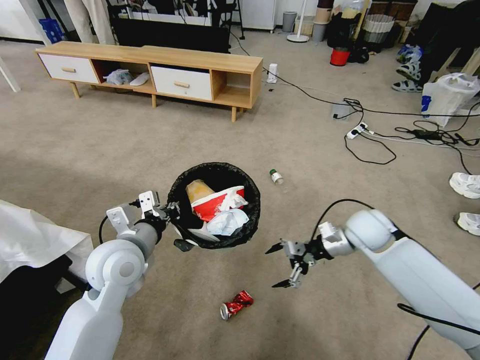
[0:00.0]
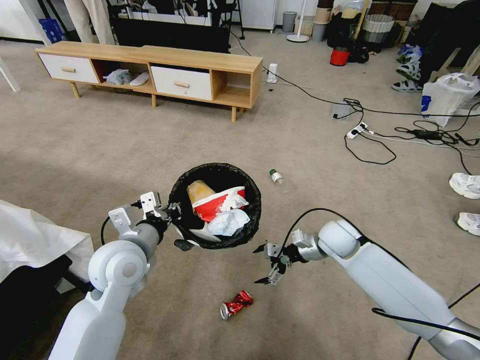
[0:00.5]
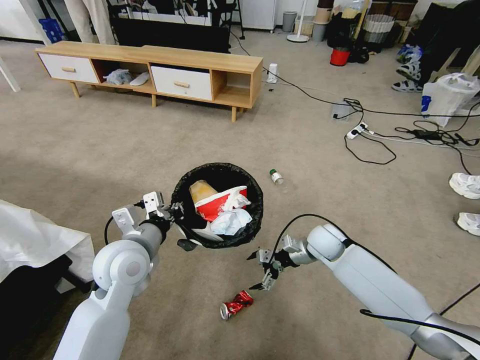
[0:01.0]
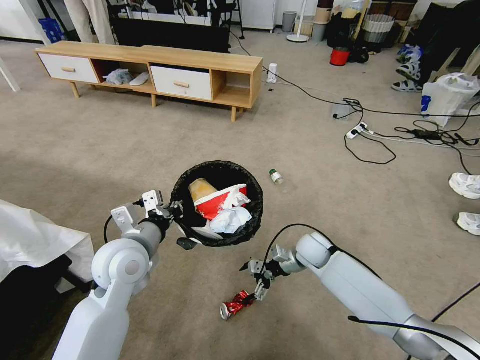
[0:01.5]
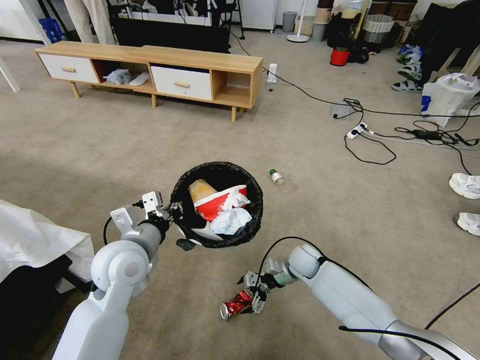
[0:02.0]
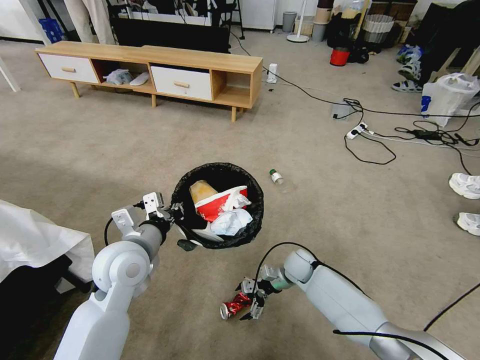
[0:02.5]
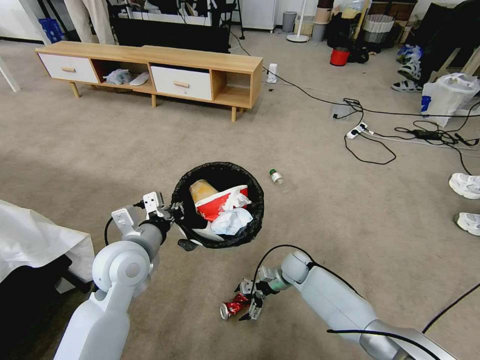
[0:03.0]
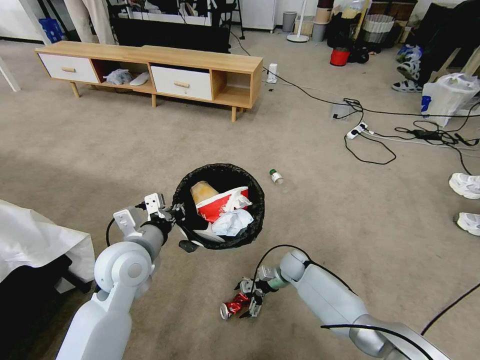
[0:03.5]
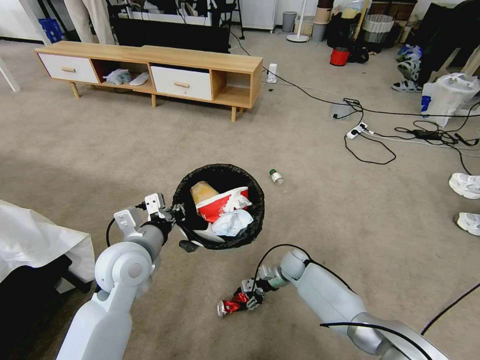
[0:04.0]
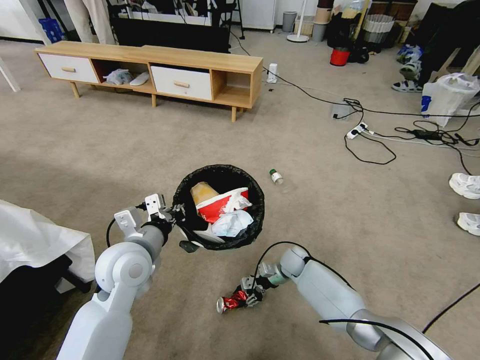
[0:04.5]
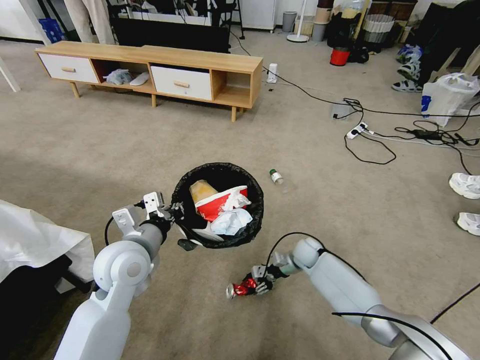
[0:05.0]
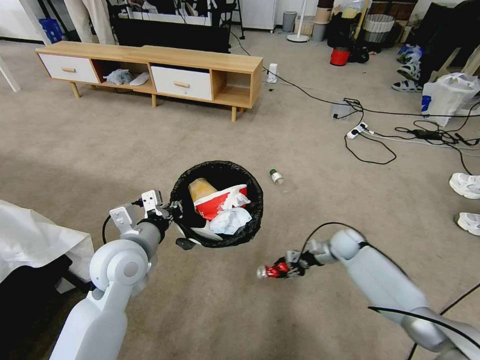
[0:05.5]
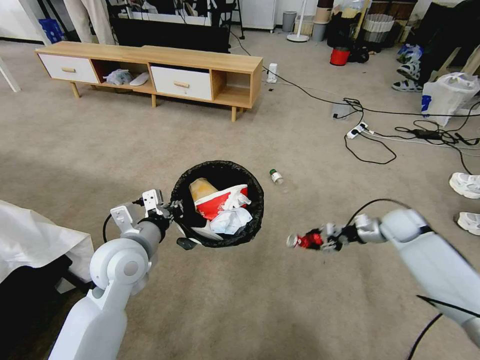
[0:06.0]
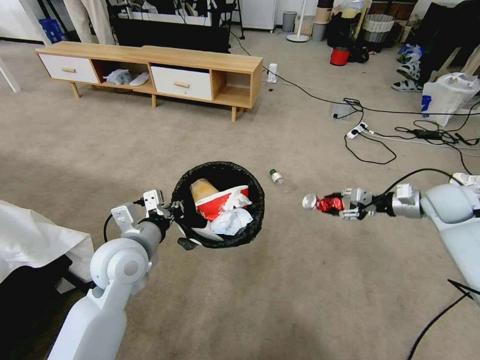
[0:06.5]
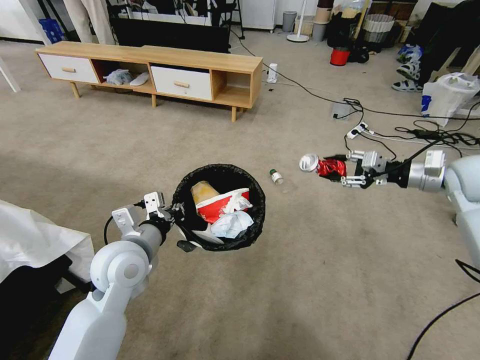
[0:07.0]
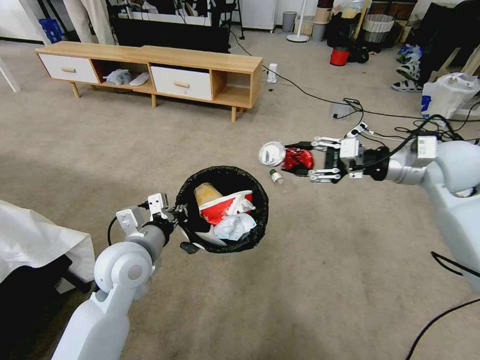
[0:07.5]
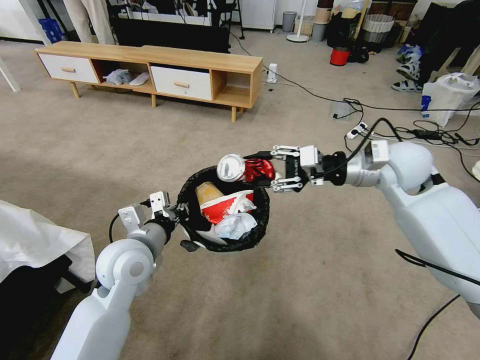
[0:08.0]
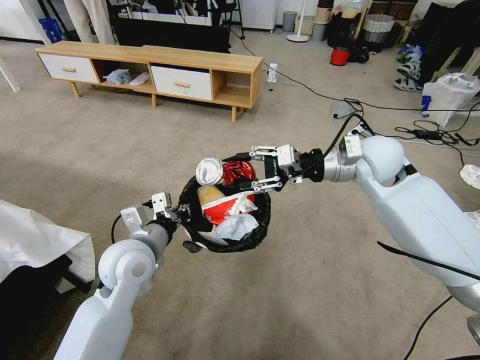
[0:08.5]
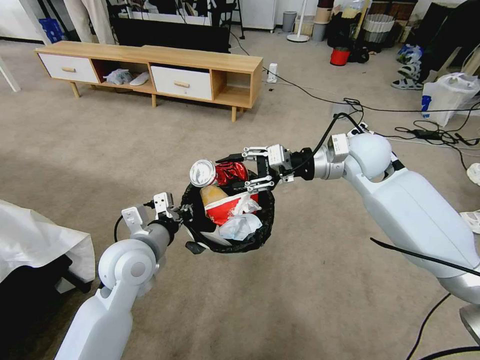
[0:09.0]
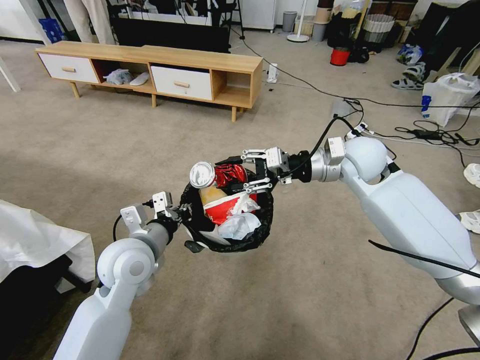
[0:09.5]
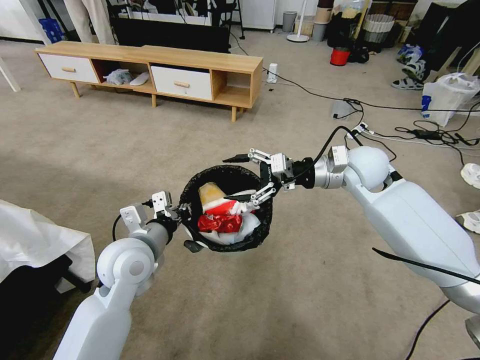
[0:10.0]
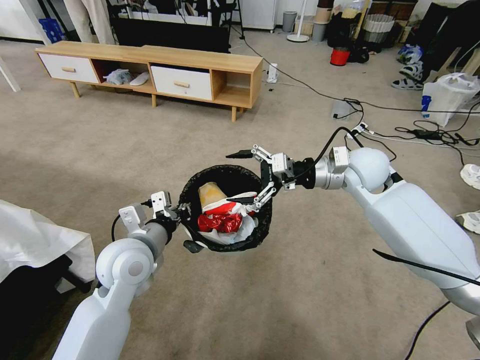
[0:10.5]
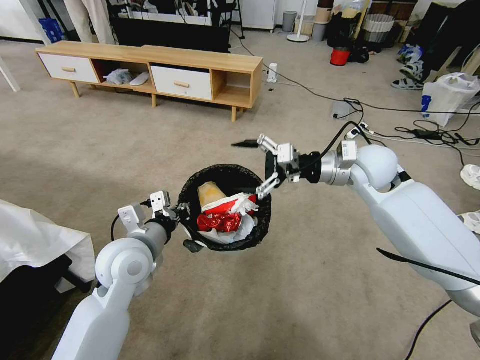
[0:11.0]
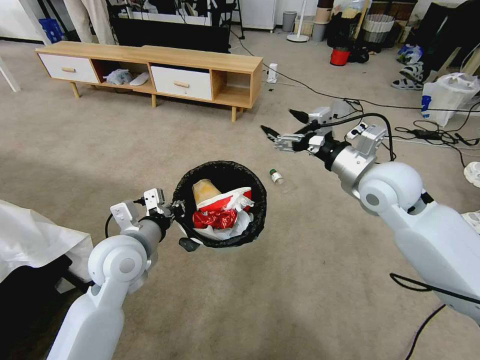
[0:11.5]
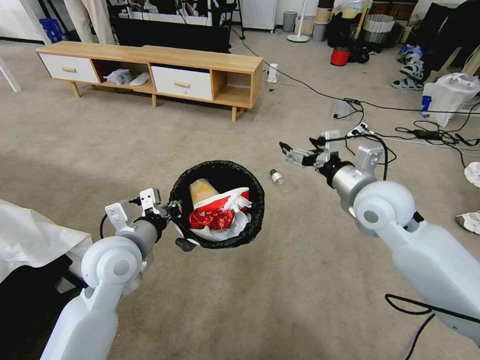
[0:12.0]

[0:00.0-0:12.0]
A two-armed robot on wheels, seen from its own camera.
Task of the whole recording: Pick up the trash bin and place the garbage on the floor into it.
0:00.0 to 0:02.0: The right gripper travels downward and to the left by some 20 cm.
0:02.0 to 0:04.0: The right gripper shifts approximately 5 cm downward, and closes.
0:04.0 to 0:06.0: The right gripper travels to the right and upward by roughly 35 cm.
0:06.0 to 0:08.0: The right gripper goes some 25 cm upward and to the left.
0:08.0 to 0:10.0: The right gripper changes place by about 5 cm, and opens its fingers.
0:10.0 to 0:12.0: The right gripper travels backward by some 10 cm.

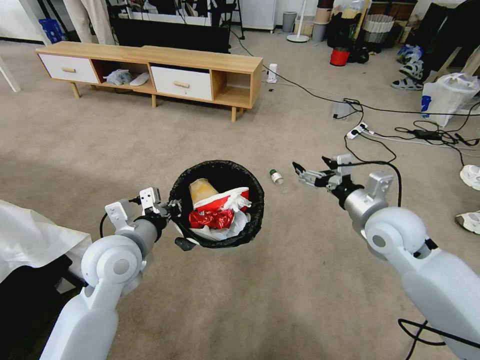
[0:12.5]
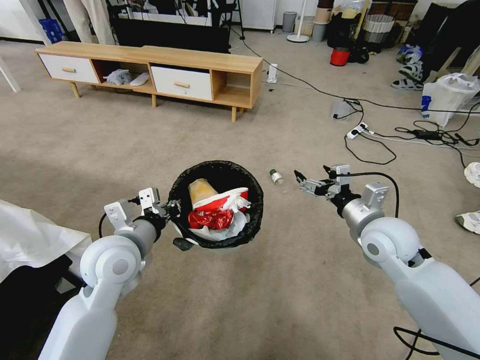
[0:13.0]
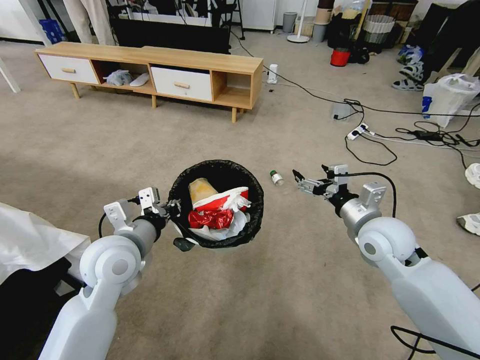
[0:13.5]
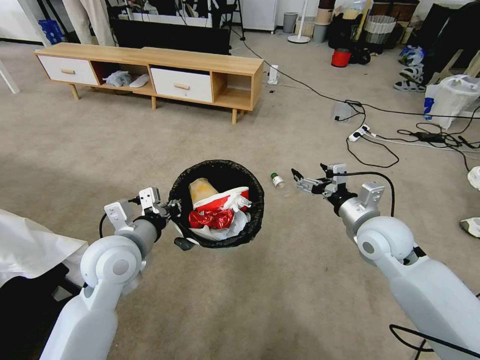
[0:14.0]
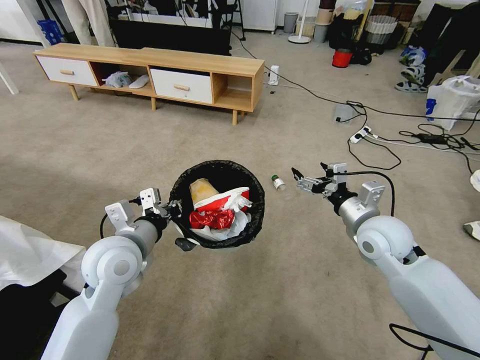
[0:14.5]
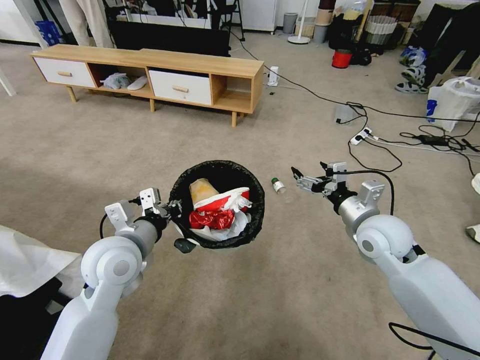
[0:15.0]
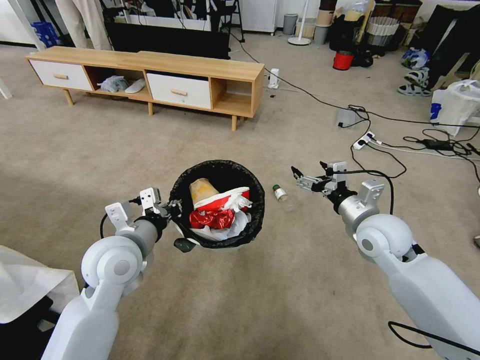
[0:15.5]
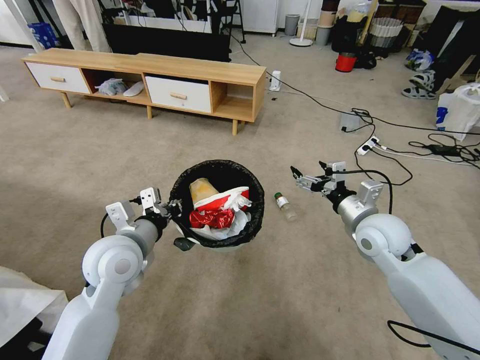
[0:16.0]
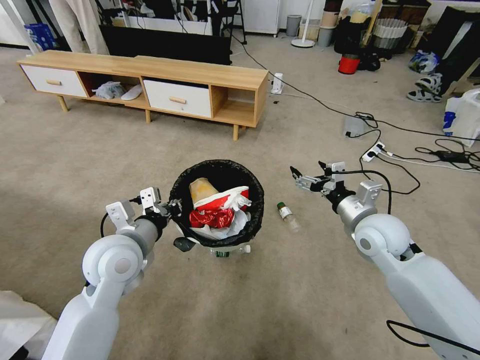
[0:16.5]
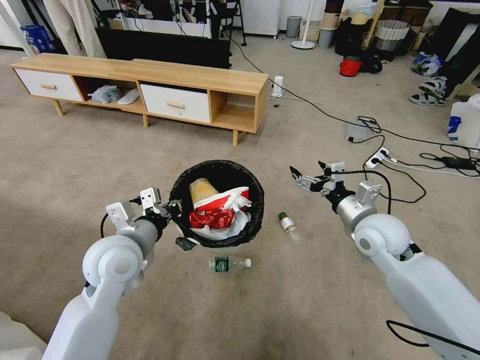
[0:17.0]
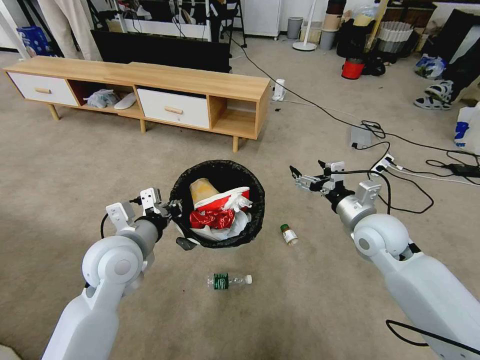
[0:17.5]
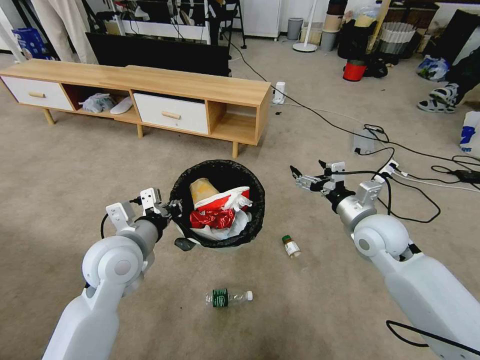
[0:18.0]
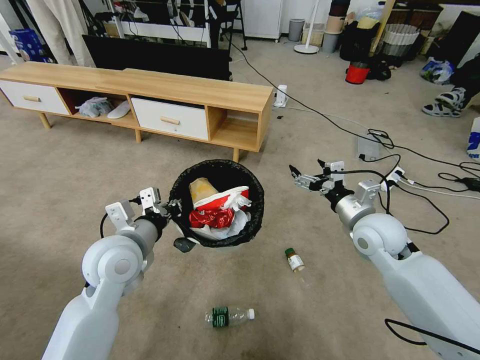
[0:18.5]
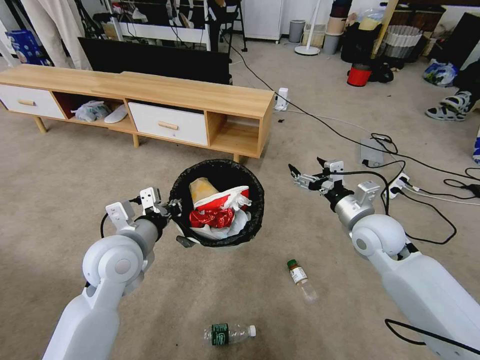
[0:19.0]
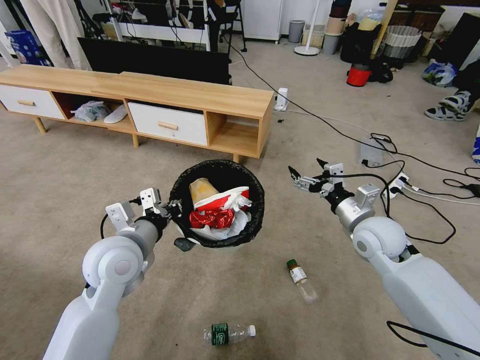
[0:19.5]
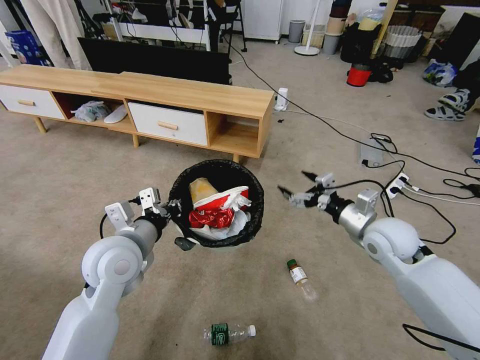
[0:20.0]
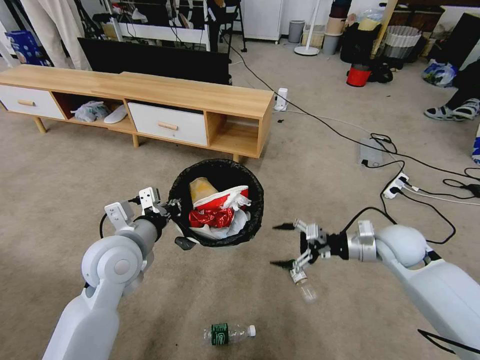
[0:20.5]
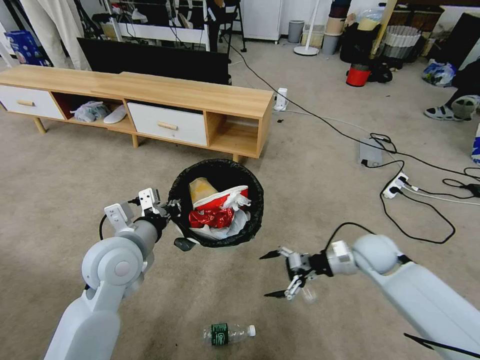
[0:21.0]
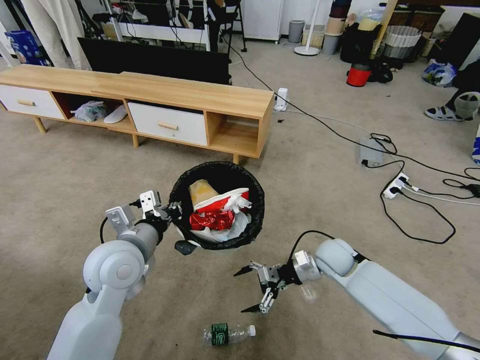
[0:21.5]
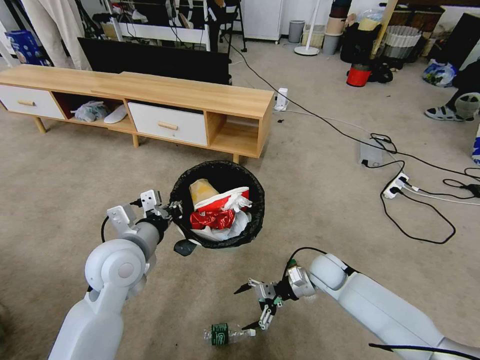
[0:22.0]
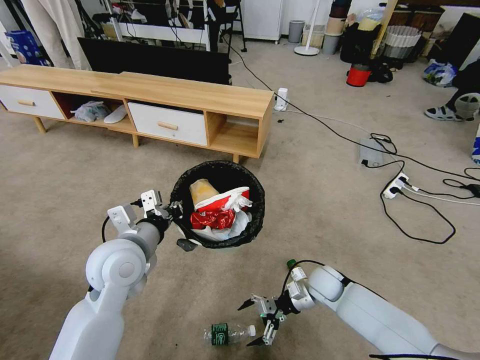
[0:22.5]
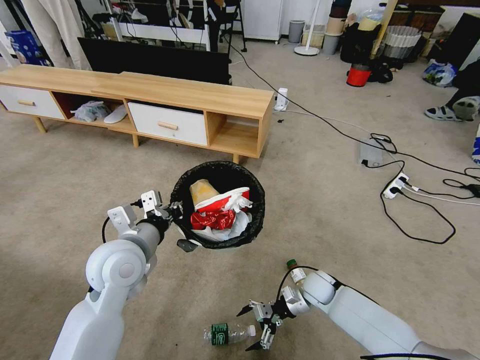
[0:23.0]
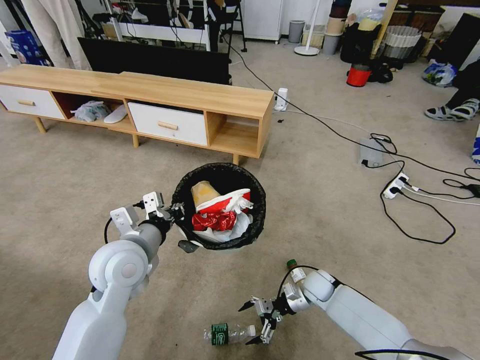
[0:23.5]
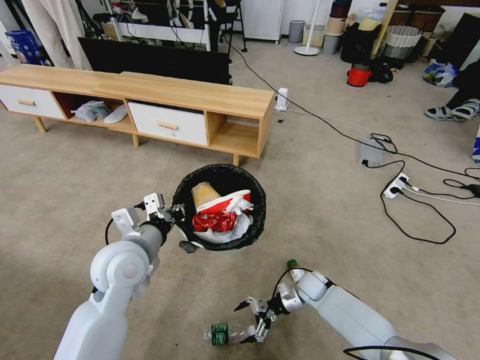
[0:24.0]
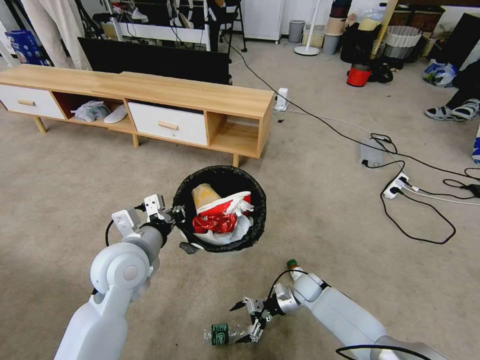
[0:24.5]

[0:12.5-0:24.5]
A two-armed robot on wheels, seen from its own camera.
Task of the whole recording: Pick up the trash bin and place the garbage on the floor into it.
0:12.5 to 0:14.5: The grippers make only small movements.
0:18.5 to 0:20.5: The right gripper moves to the right, about 5 cm.
0:20.5 to 0:22.5: The right gripper travels downward and to the left by about 20 cm.
0:22.5 to 0:24.5: The right gripper heads downward, covering roughly 10 cm.

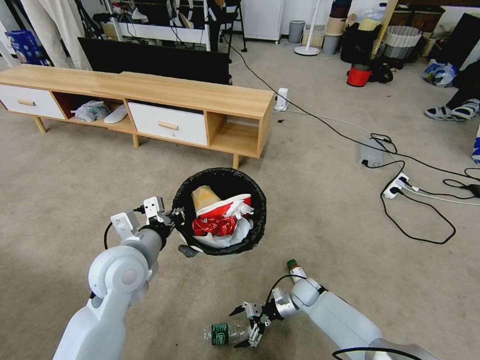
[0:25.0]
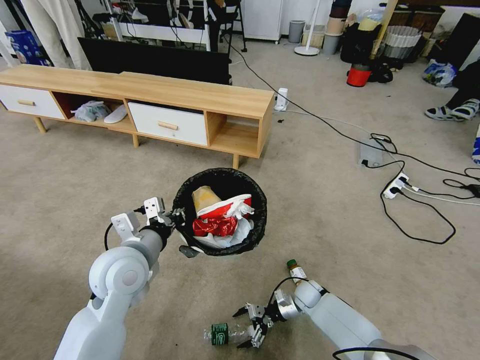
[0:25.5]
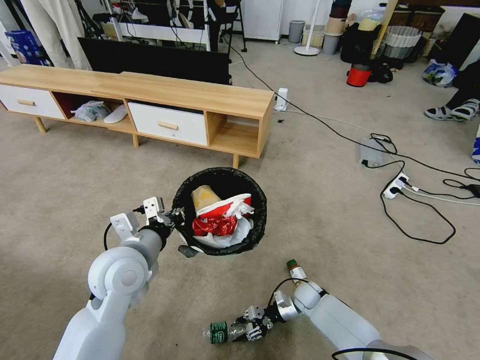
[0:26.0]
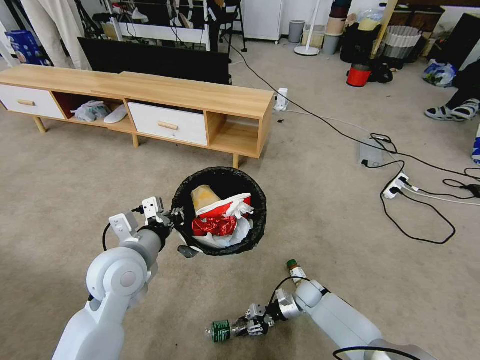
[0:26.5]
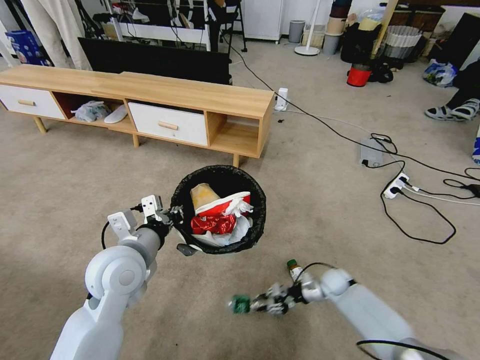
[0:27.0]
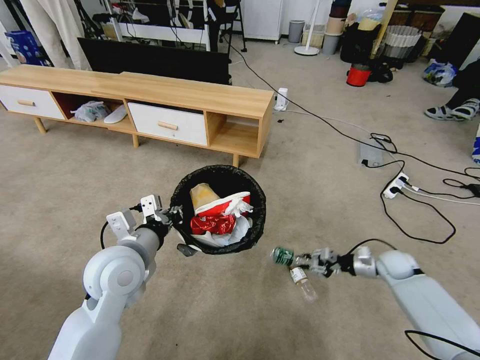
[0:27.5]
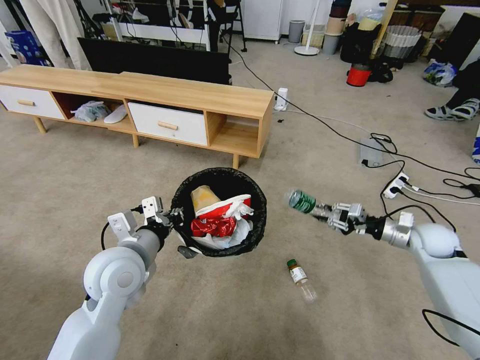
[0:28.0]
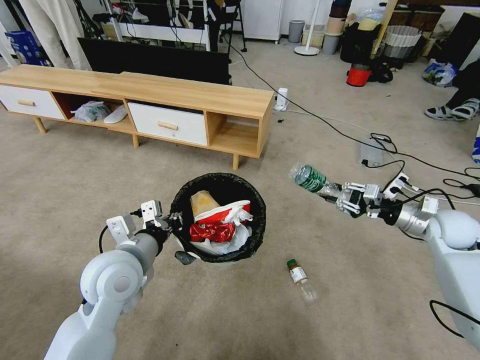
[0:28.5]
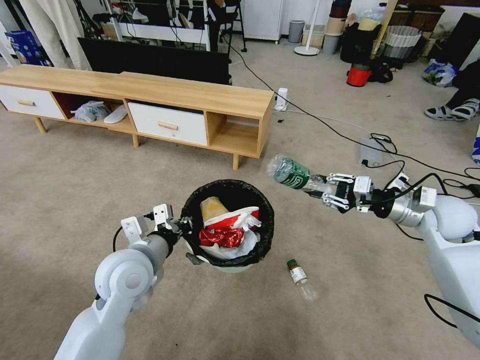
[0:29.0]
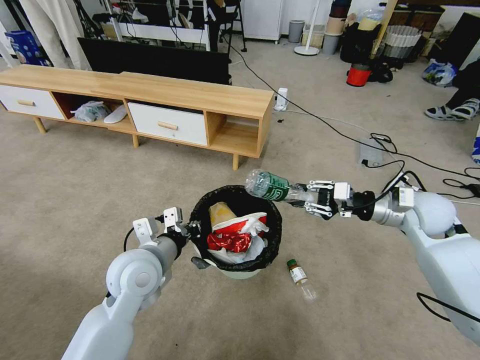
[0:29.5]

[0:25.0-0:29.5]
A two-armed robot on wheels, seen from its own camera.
Task of the whole recording: Pick up the trash bin and place the garbage on the floor into it.
0:25.0 to 0:27.0: The right gripper travels to the right by roughly 10 cm, and closes.
0:27.0 to 0:29.5: The right gripper moves upward, about 35 cm.
